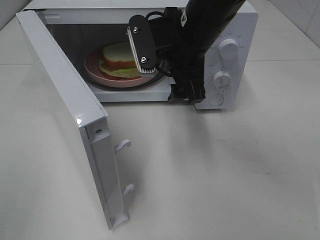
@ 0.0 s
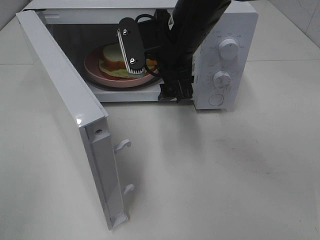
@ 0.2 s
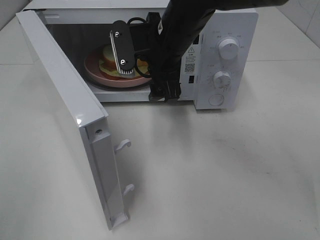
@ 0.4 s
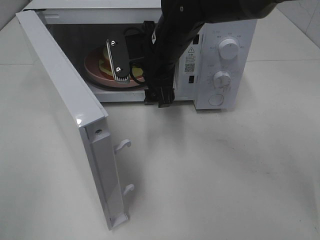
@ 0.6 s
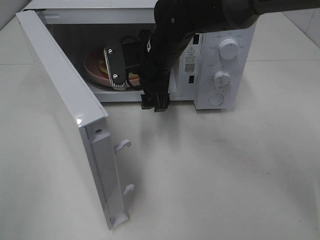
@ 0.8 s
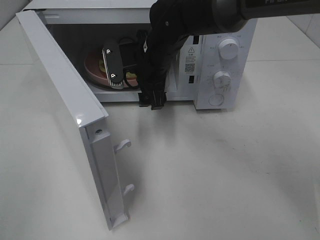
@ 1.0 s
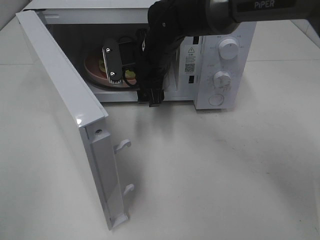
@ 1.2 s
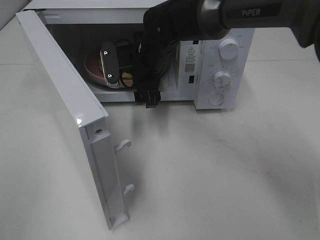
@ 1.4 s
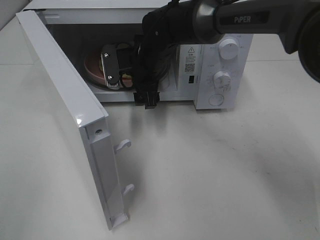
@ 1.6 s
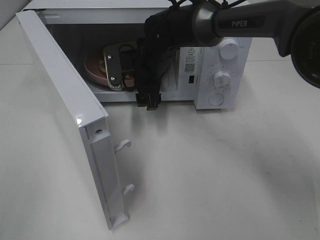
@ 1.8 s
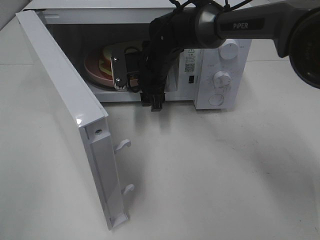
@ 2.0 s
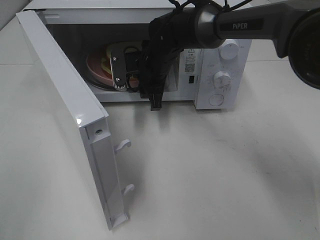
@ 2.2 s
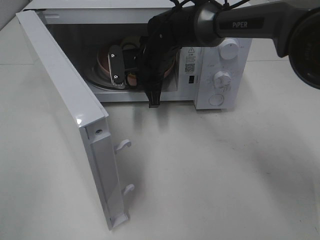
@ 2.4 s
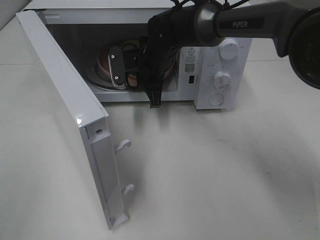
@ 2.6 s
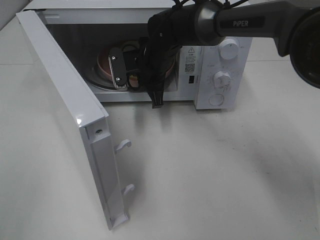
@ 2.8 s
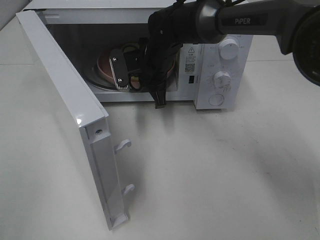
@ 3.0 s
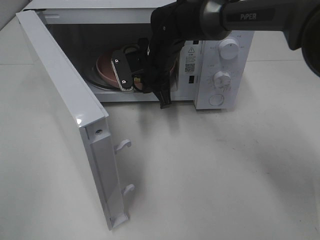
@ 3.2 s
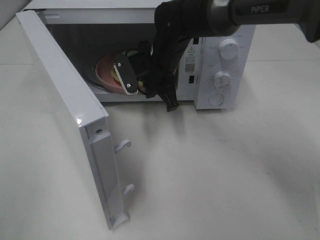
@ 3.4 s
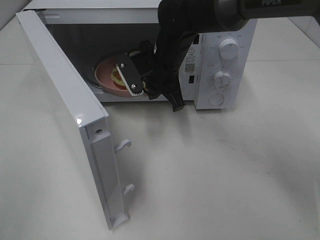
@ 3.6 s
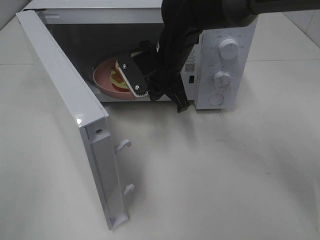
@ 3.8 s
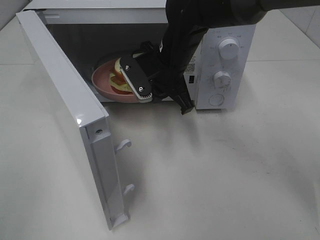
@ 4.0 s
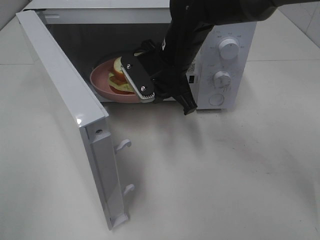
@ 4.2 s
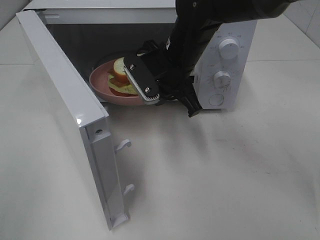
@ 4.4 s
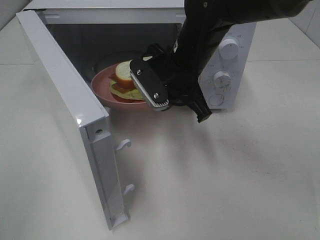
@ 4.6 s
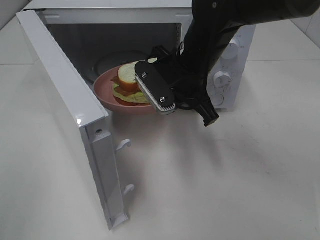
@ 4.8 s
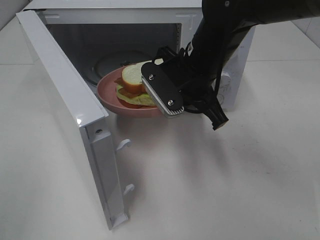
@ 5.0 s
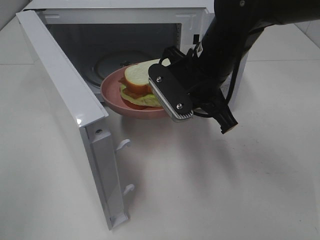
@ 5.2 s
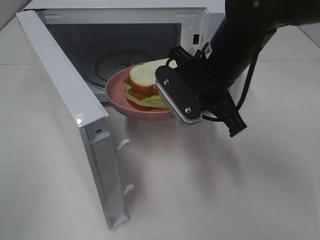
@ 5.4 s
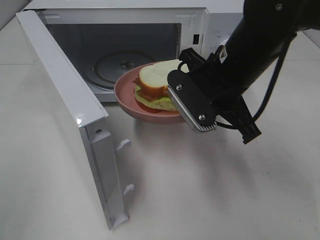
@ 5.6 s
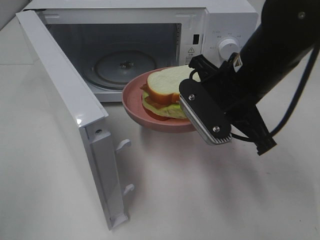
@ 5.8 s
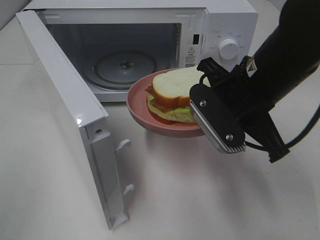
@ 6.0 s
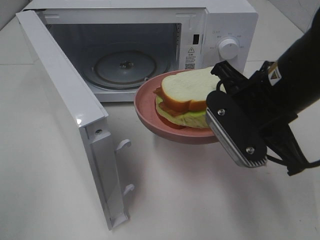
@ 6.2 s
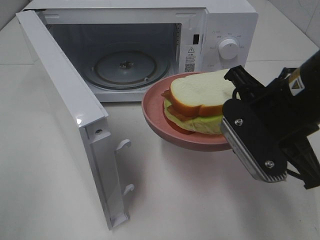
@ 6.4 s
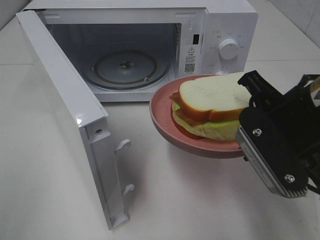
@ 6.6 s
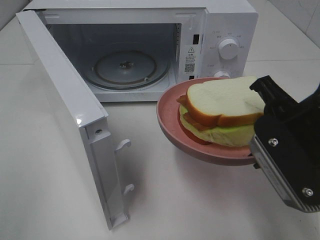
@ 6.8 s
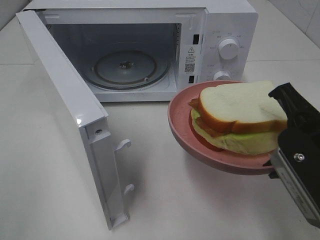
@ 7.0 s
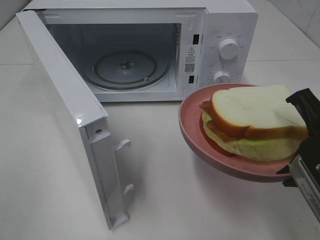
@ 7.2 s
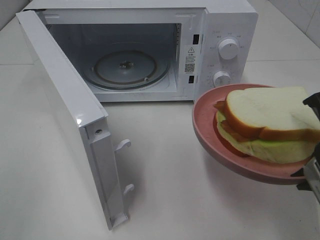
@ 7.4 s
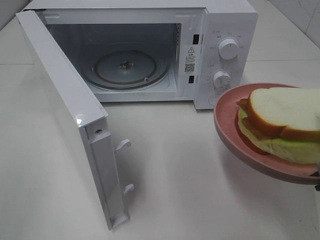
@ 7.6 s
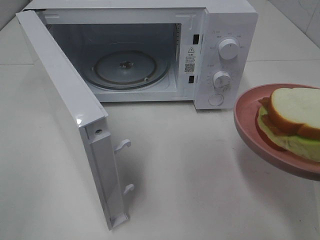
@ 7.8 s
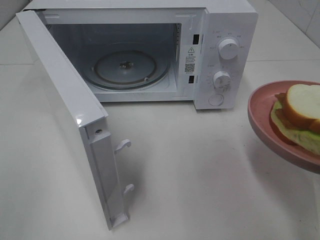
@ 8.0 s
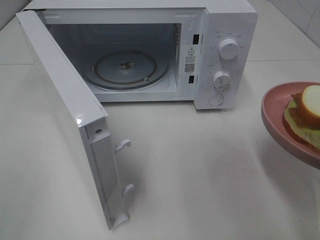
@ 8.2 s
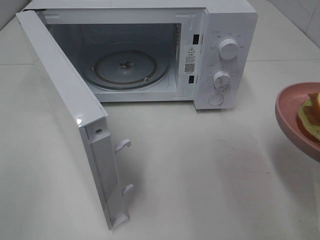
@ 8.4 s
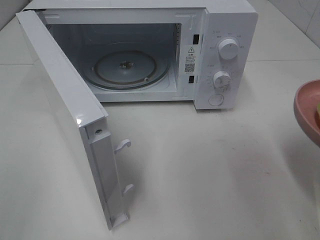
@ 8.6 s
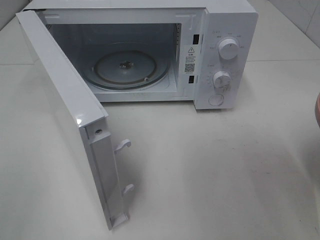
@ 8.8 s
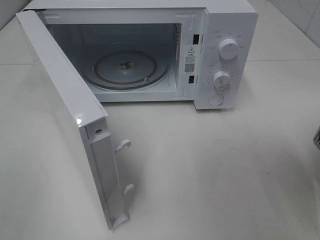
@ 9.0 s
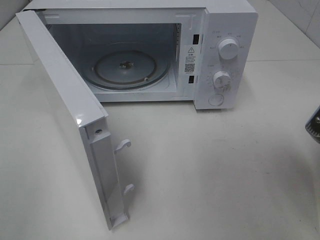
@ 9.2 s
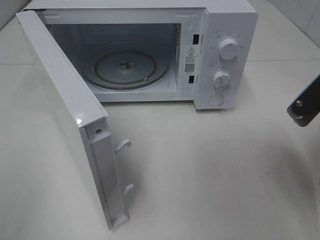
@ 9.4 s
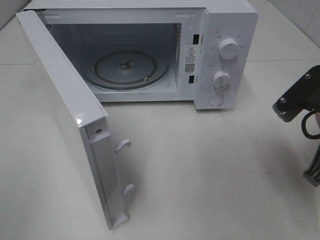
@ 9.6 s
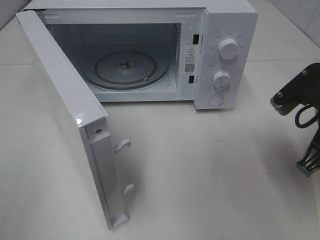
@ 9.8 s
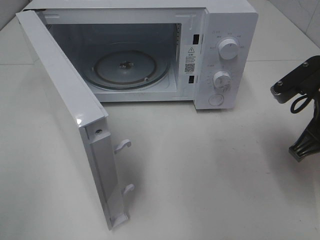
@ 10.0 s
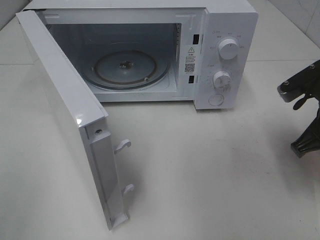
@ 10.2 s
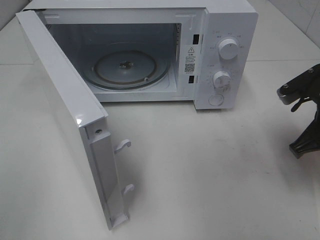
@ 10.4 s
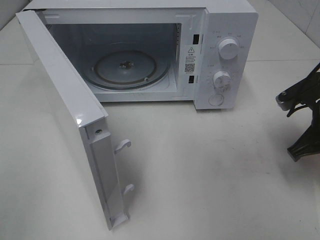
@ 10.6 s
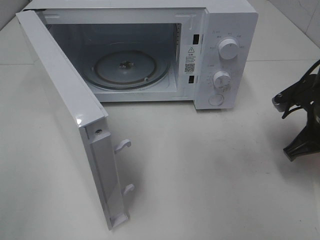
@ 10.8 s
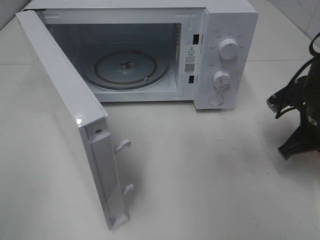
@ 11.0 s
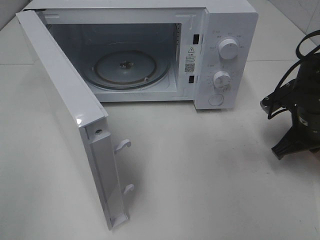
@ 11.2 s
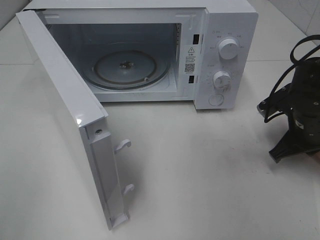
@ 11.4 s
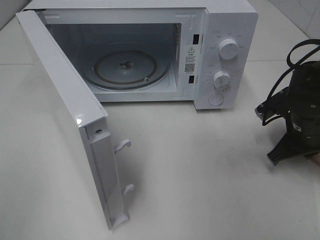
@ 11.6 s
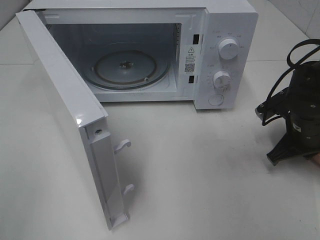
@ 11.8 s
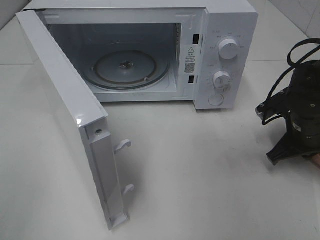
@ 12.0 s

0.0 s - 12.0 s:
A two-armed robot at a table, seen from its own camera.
Task of the whole recording: Heat Sandwich.
Step, 0.0 s - 2.6 s: Right hand: grab the plate with the sandwich.
0.0 s - 1.6 s: The right gripper moves forward, downward and to the left, about 15 cm.
1.6 s - 3.0 s: The right gripper closes.
3.0 s - 4.4 s: The right gripper goes about 10 cm backward and upward.
4.4 s - 6.0 s: The right gripper moves backward and to the right, some 15 cm.
6.0 s - 7.6 s: The right gripper is displaced backward and to the right by some 15 cm.
9.0 s - 10.4 s: The right gripper heads forward and downward, covering approximately 15 cm.
10.4 s - 12.0 s: The right gripper goes some 5 cm downward.

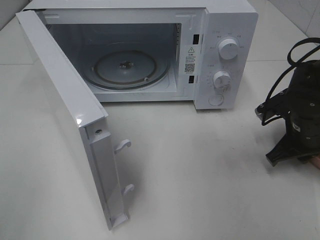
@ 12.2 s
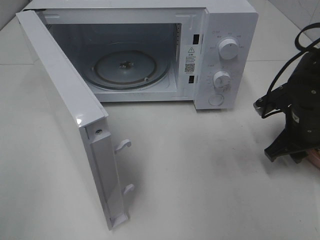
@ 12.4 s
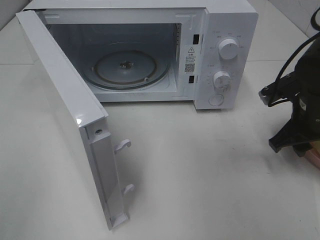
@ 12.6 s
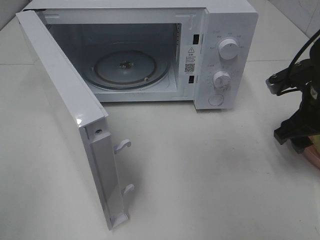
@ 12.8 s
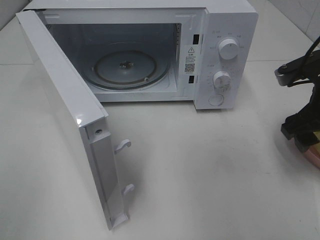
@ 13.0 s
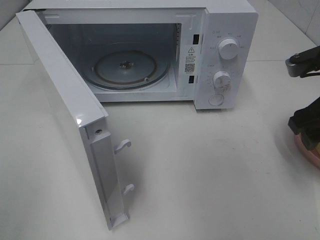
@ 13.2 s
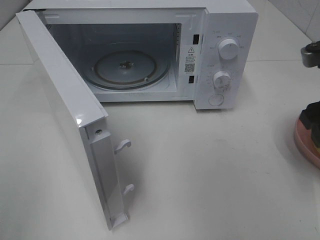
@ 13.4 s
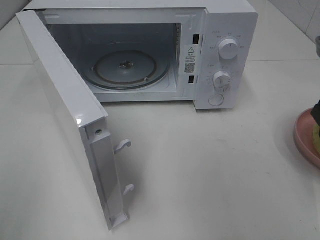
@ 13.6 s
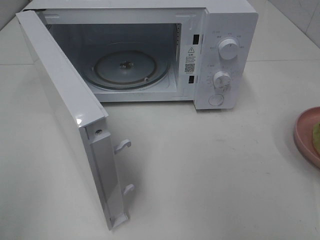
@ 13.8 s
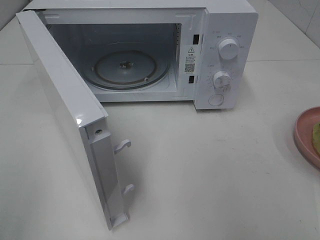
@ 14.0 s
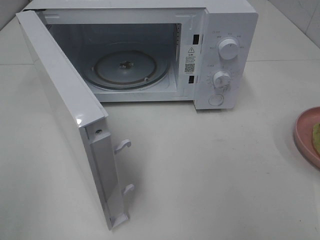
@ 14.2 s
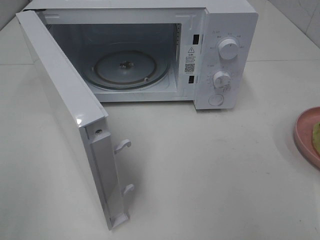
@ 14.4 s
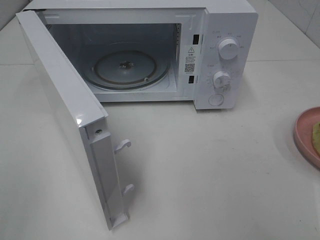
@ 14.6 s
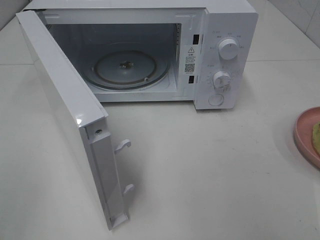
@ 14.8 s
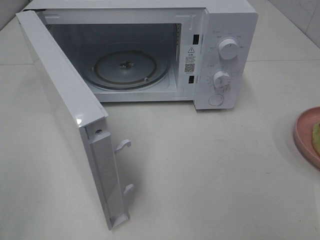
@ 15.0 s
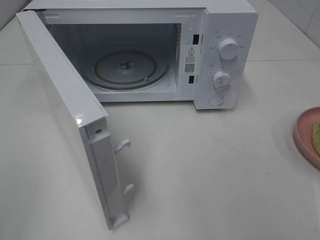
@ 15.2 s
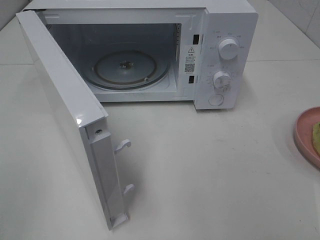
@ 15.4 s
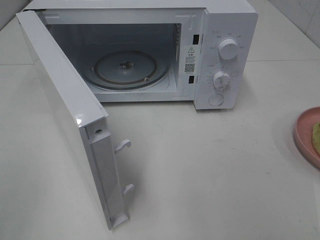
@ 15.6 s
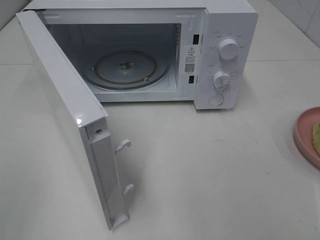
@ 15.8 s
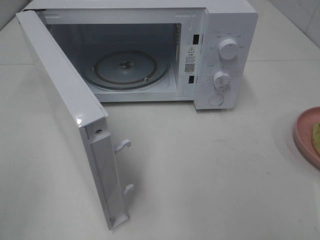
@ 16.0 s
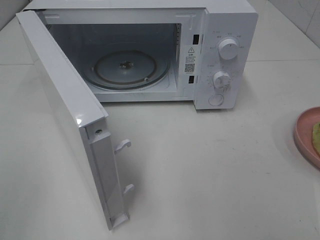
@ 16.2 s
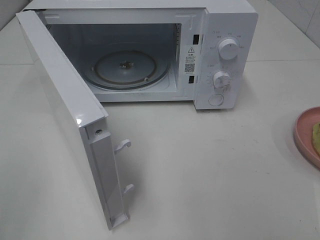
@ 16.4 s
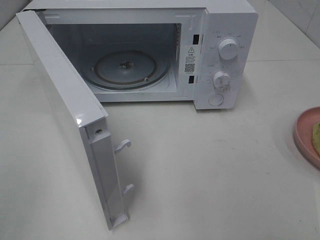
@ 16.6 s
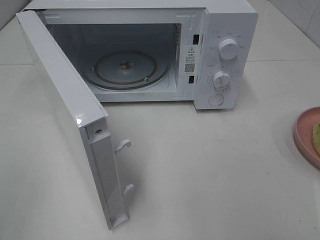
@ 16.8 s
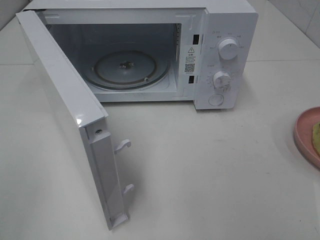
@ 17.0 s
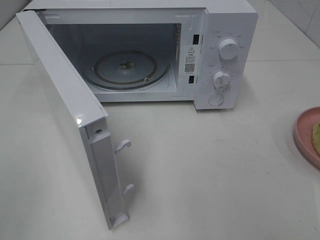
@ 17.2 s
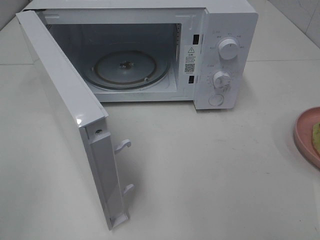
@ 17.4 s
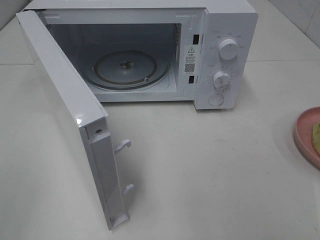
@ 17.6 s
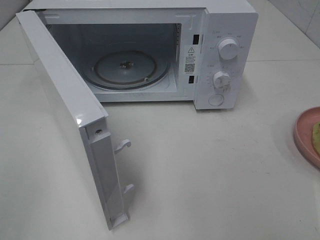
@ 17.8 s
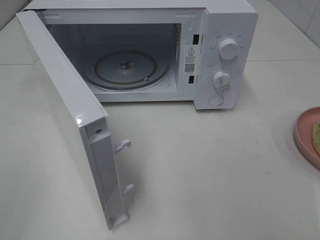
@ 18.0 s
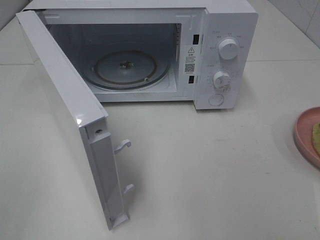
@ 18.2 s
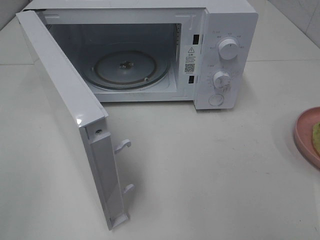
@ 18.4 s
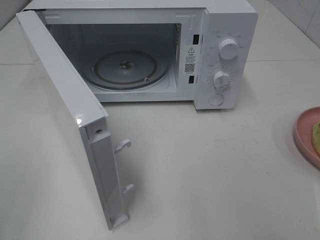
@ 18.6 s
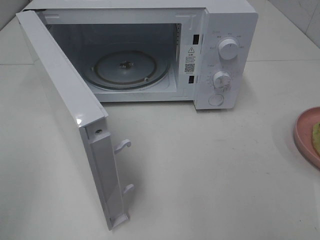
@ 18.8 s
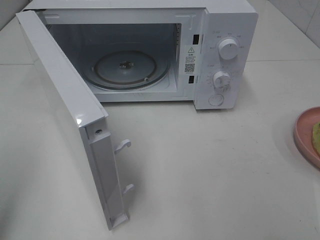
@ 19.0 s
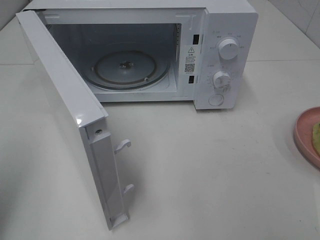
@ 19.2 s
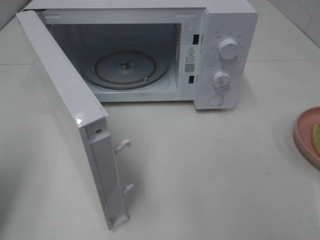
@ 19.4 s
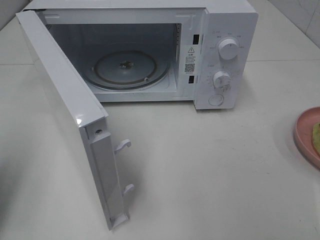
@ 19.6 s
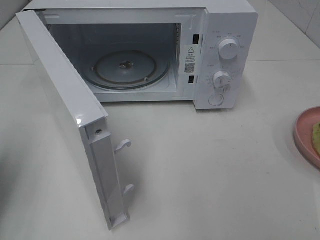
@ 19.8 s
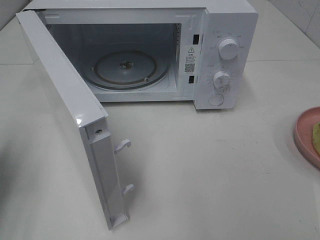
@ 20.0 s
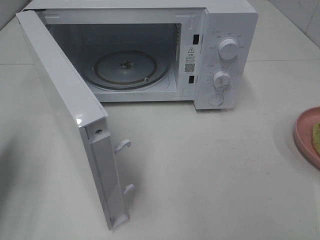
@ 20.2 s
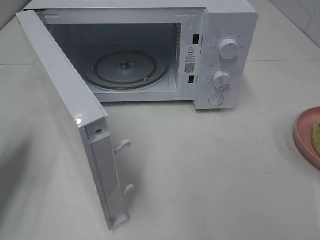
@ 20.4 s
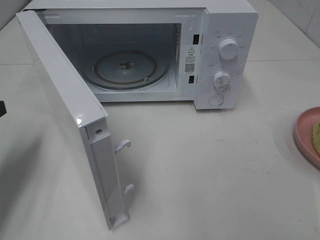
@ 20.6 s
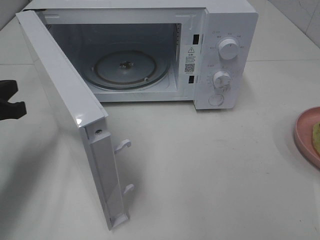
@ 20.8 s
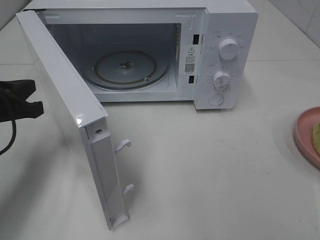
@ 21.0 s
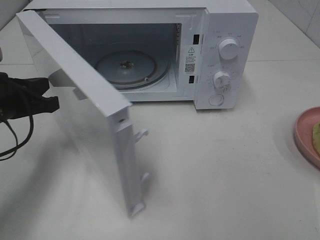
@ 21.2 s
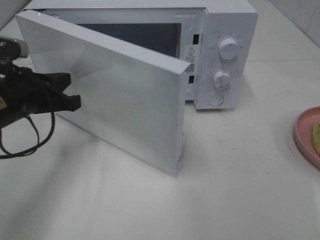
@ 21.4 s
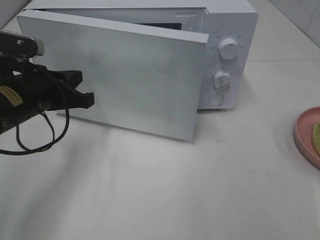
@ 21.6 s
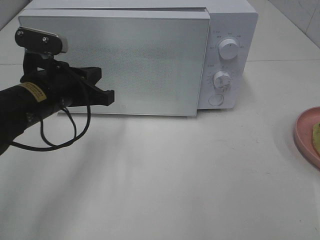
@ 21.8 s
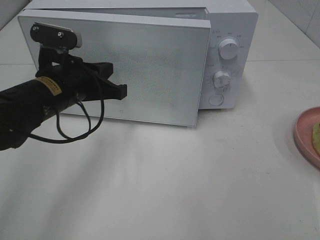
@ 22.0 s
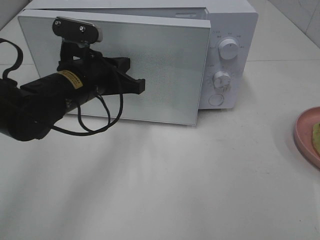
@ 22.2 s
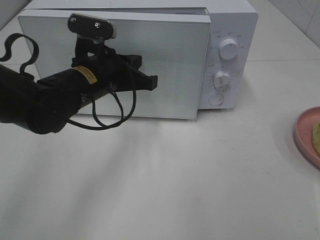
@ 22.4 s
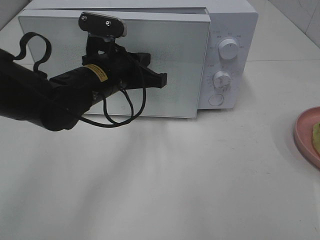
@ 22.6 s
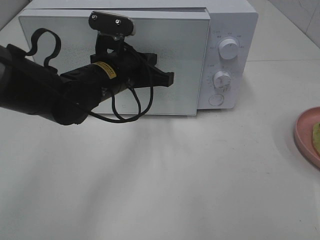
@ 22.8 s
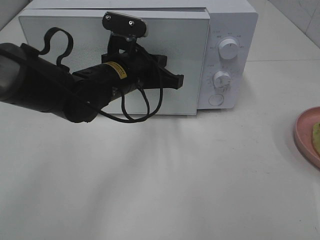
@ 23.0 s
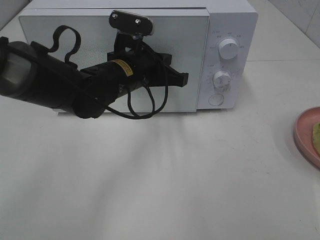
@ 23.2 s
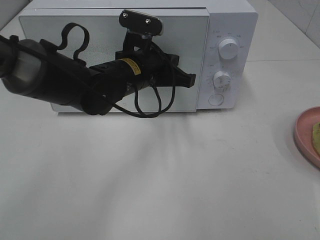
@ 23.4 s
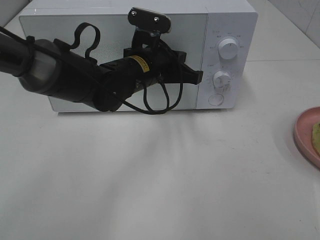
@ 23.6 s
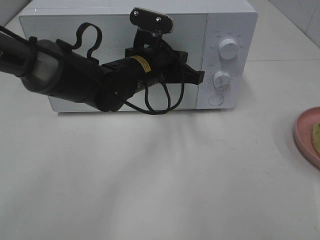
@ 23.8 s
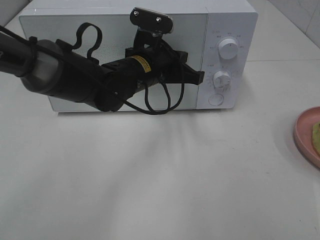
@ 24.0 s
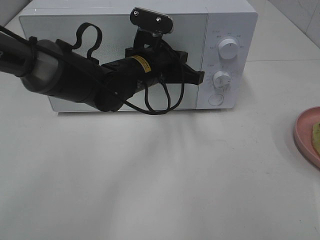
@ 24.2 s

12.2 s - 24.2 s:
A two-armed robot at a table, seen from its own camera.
Task of the whole recording: Heat Sandwich.
12.2 s - 13.8 s: The right gripper is displaced upward and backward by some 25 cm, and opens up.
16.6 s - 18.2 s: Neither gripper changes place.
18.2 s - 19.8 s: The left gripper moves forward, about 20 cm, and closes its fingers.
19.8 s - 21.2 s: The left gripper heads to the right, forward and downward, covering about 15 cm.
21.2 s - 22.6 s: The left gripper shifts approximately 15 cm to the right.
22.6 s - 24.2 s: The left gripper travels to the right by approximately 5 cm.
